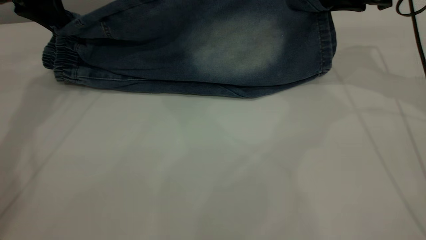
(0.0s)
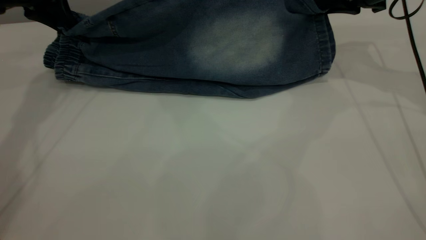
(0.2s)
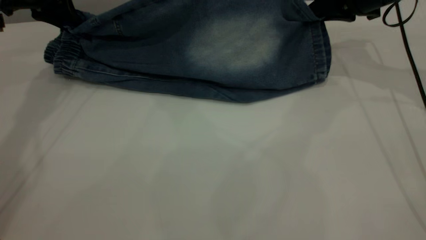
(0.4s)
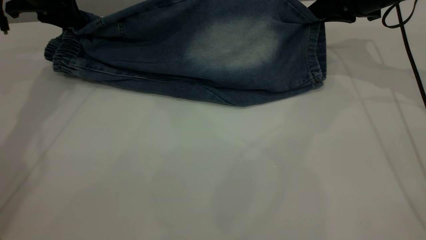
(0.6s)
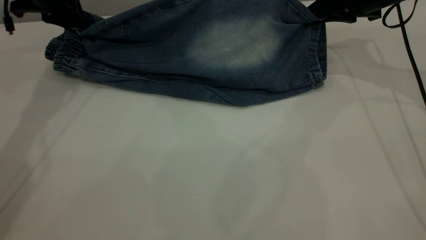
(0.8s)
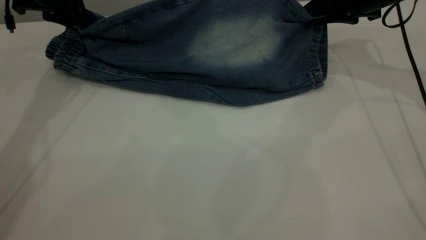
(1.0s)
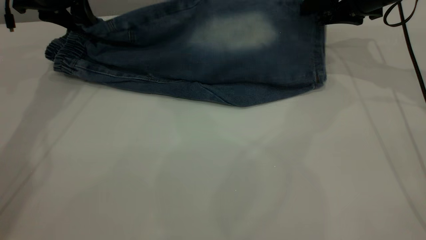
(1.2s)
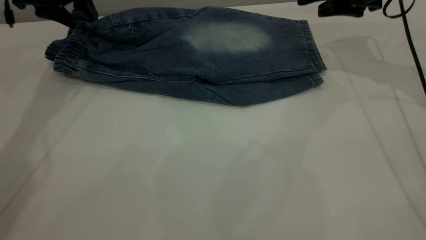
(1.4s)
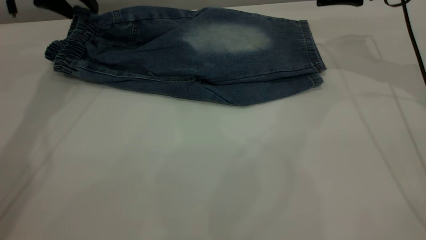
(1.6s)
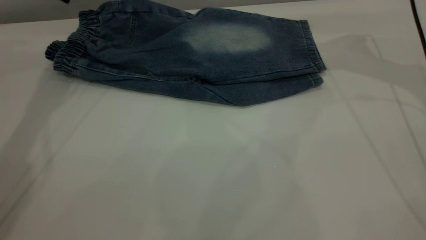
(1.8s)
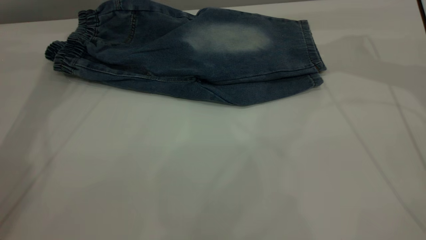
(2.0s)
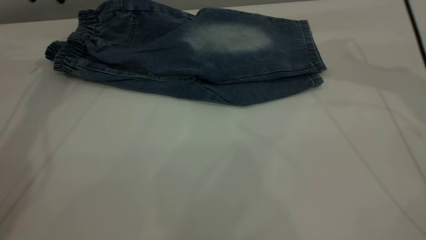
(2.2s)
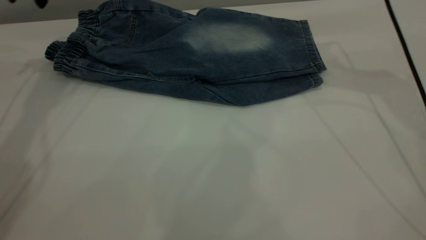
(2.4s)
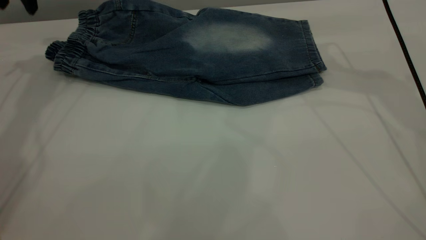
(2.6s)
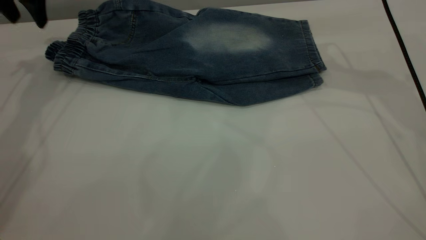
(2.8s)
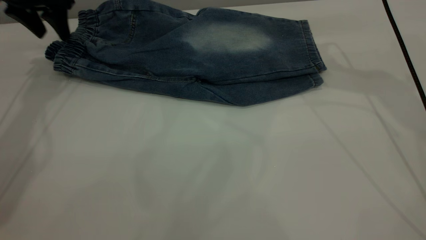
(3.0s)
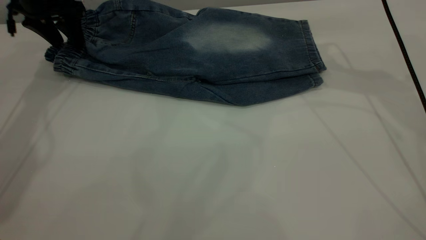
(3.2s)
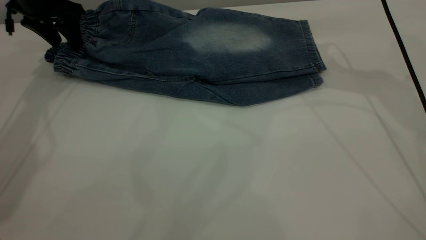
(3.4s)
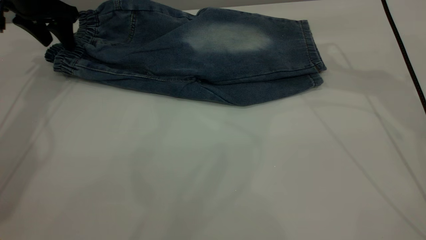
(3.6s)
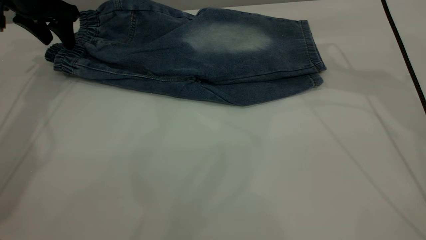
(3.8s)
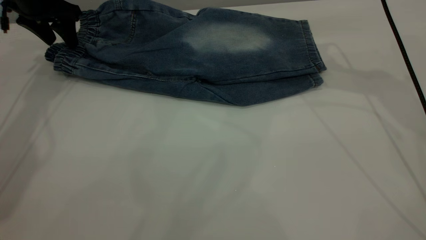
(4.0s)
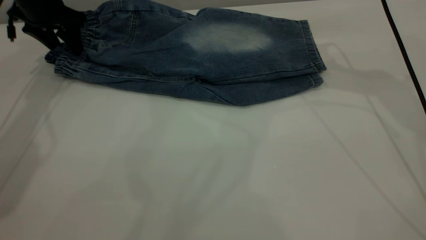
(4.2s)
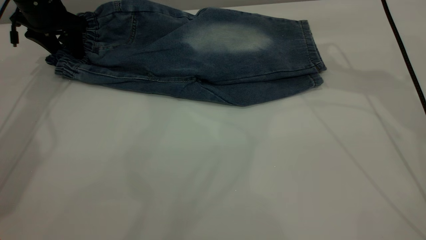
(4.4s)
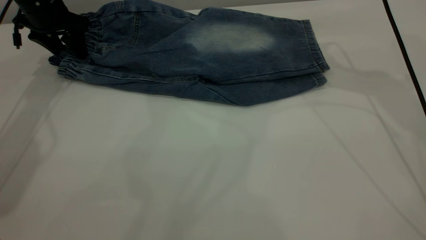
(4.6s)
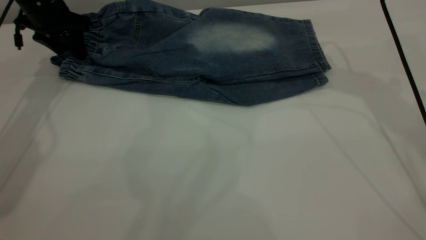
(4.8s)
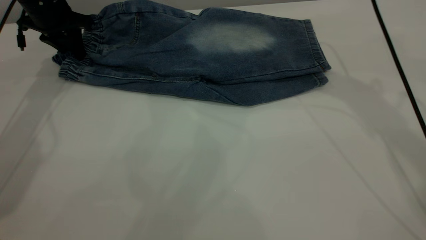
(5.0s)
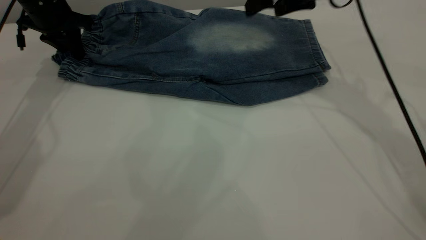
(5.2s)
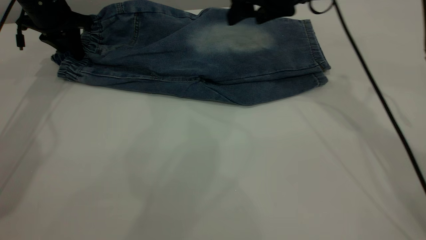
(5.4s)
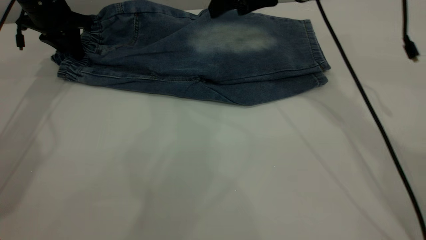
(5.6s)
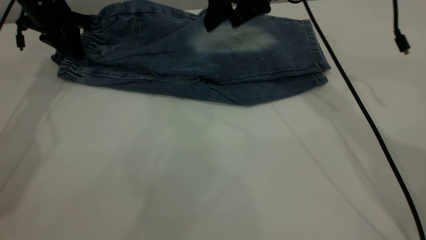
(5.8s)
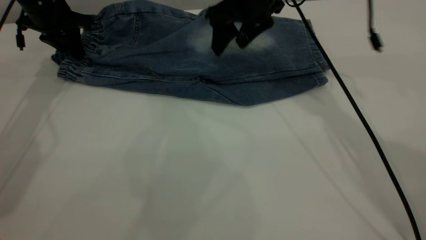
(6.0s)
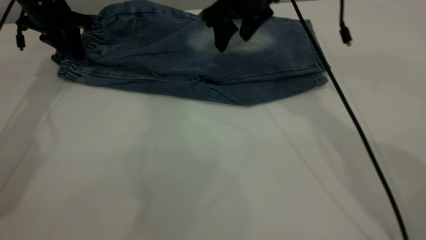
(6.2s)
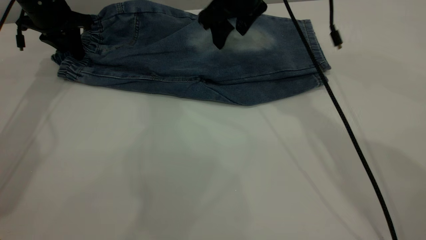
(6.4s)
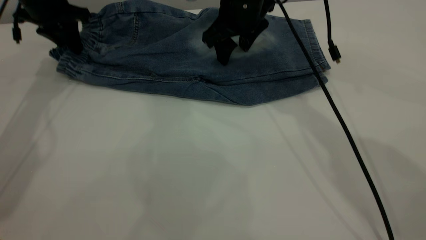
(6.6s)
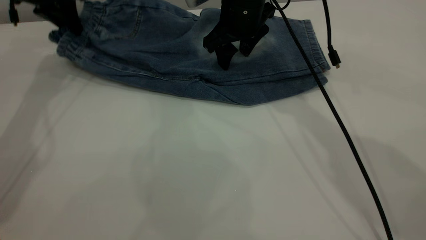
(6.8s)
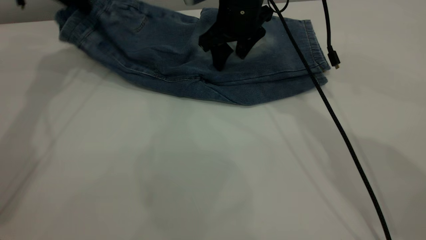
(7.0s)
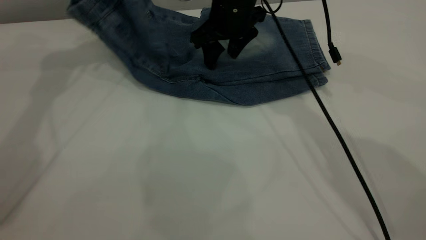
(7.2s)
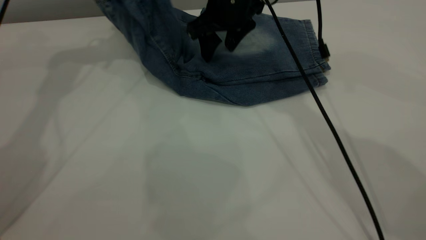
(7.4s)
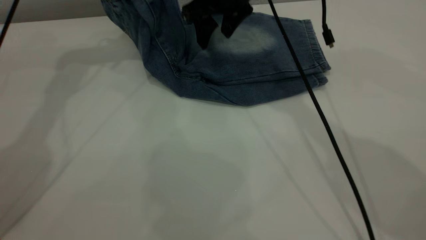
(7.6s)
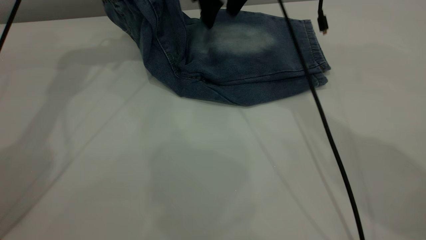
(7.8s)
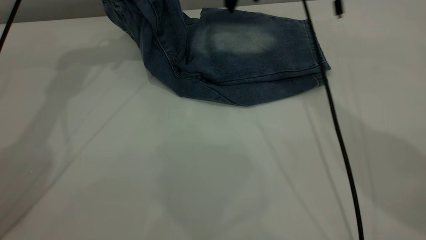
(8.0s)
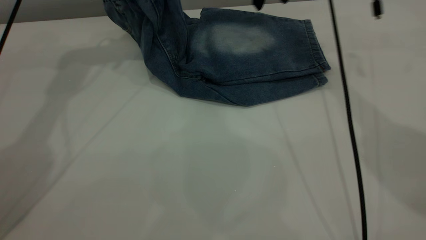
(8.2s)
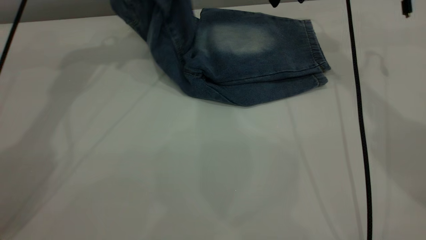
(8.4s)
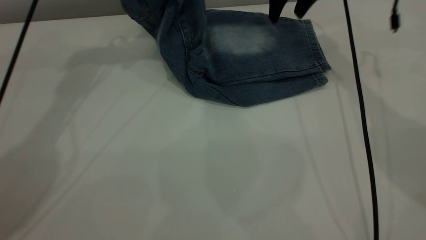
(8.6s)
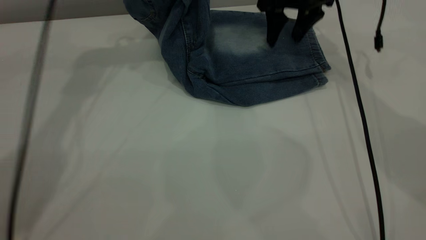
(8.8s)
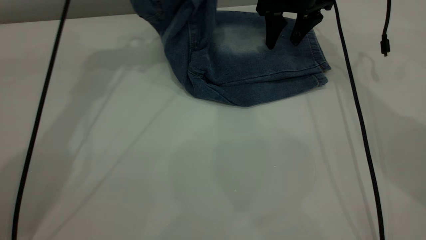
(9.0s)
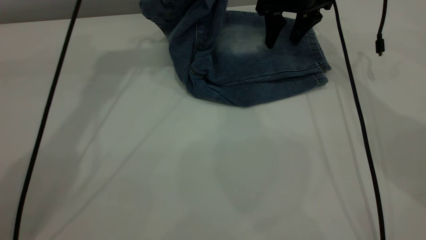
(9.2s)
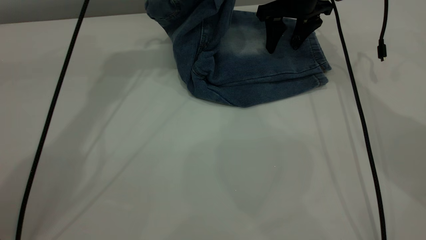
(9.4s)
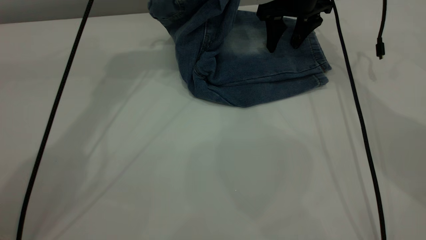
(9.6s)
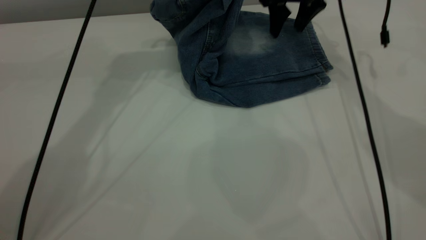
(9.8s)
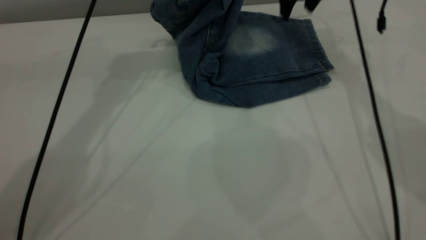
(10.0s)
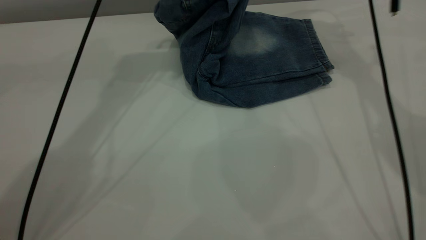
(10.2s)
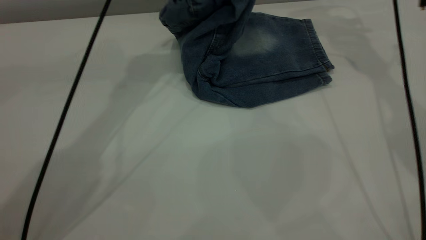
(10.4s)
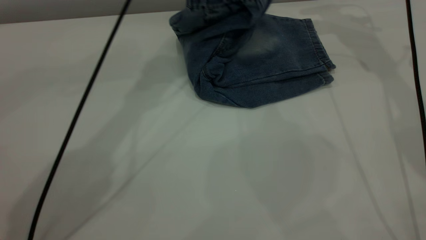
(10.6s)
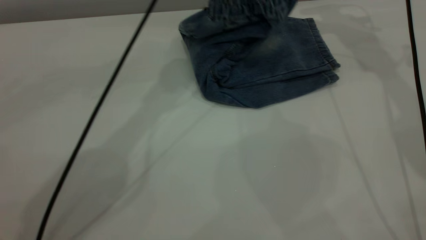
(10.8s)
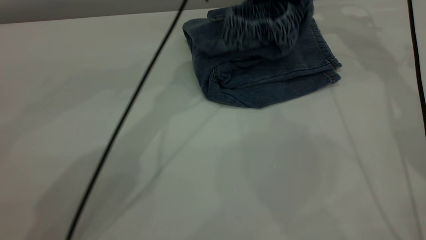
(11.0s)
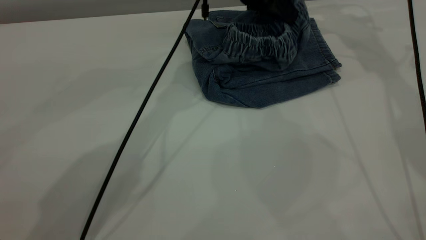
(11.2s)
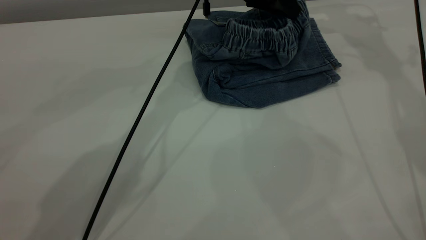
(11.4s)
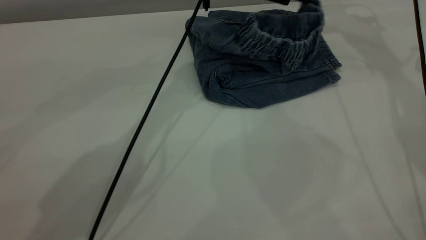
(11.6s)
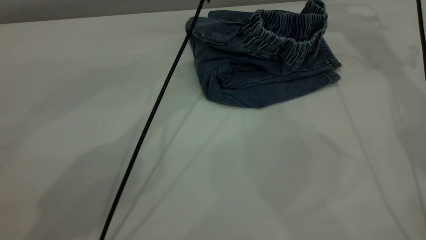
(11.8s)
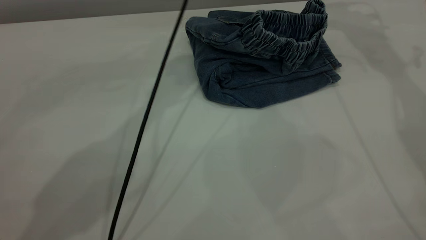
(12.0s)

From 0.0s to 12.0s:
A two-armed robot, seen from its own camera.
Step, from 0.0s to 2.0s: Fold the bottom of the pants upward.
Step, from 2.2s to 12.0s: Fold the pants from left to right.
From 0.0s to 1.6s: The left gripper opens up. Meanwhile the right gripper opens.
From 1.6s to 3.0s: The right gripper is displaced to the left by roughly 5 cm.
From 3.0s to 4.4s: There are only small adjustments of the grippers.
From 4.4s to 6.0s: The right gripper is displaced to the left and downward by about 15 cm, while the left gripper closes up.
From 6.0s to 7.6s: The left gripper is displaced upward and to the right by roughly 15 cm.
From 7.6s to 9.0s: The right gripper travels to the right by roughly 10 cm, while the left gripper shifts approximately 5 cm to the right.
From 9.0s to 10.4s: The right gripper goes about 10 cm upward and to the right. Meanwhile the left gripper goes some 10 cm to the right.
From 10.4s to 12.0s: The right gripper is displaced upward by about 5 cm, while the left gripper moves to the right, about 5 cm, travels downward and back again, roughly 10 cm each way, and opens its fingers.

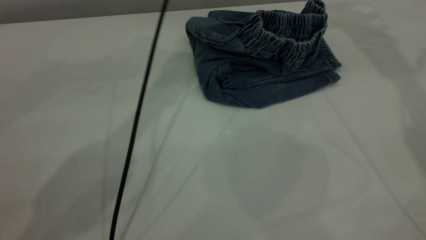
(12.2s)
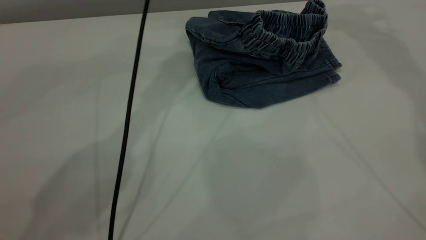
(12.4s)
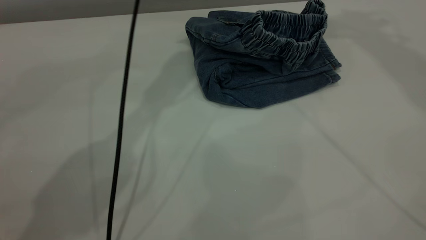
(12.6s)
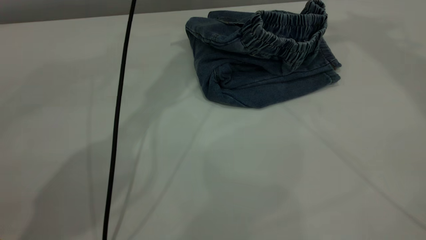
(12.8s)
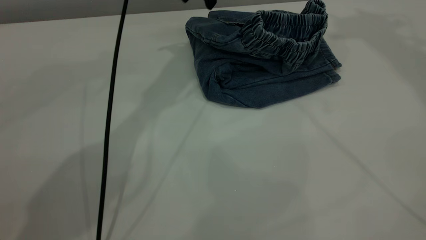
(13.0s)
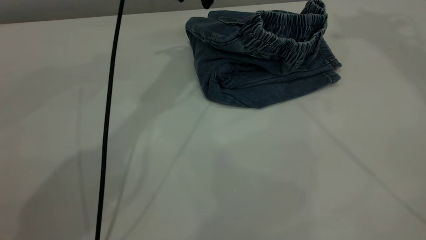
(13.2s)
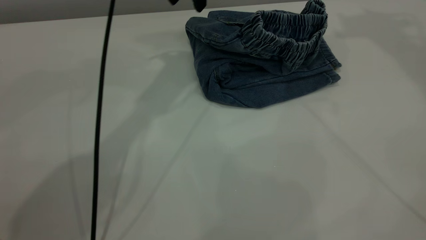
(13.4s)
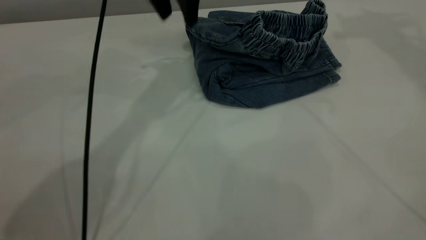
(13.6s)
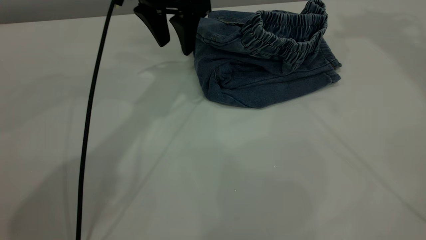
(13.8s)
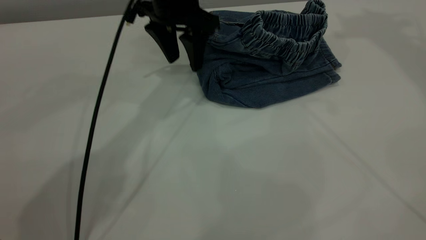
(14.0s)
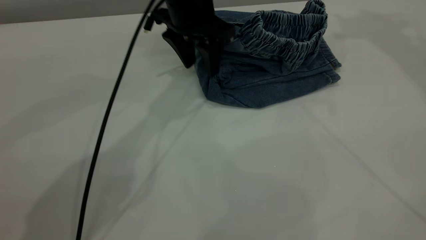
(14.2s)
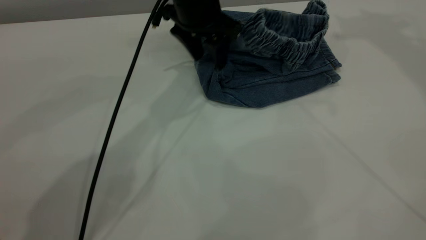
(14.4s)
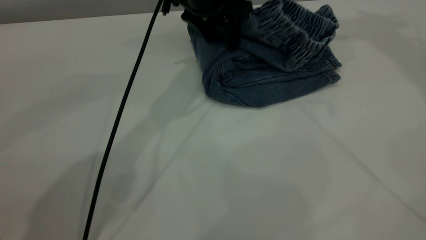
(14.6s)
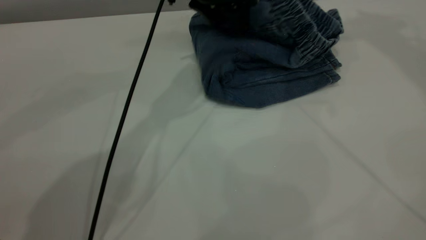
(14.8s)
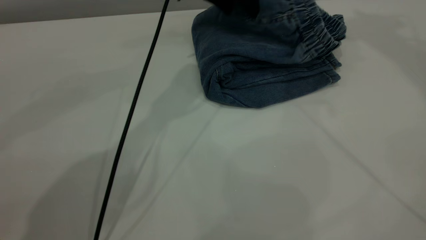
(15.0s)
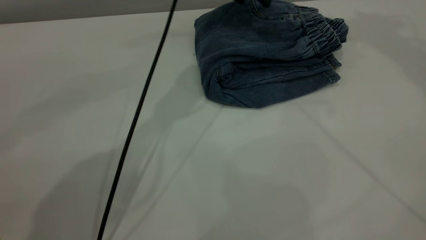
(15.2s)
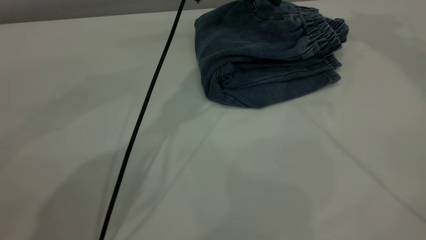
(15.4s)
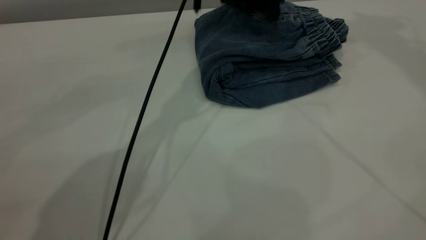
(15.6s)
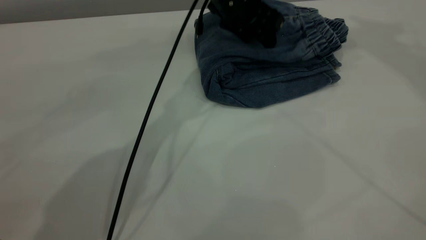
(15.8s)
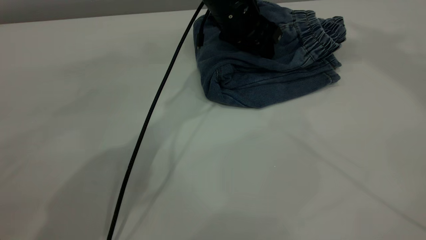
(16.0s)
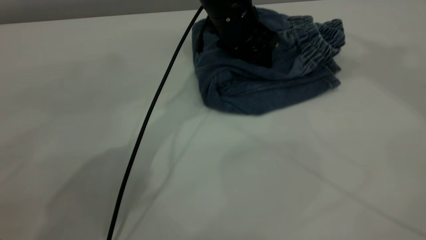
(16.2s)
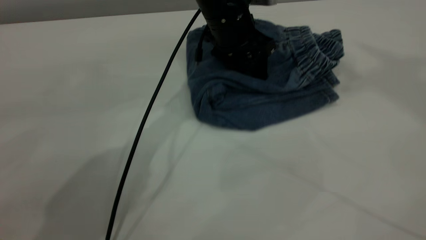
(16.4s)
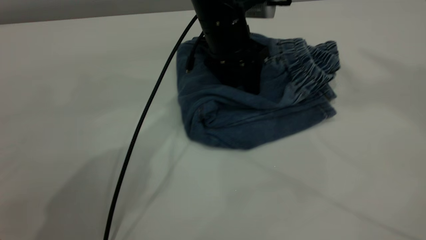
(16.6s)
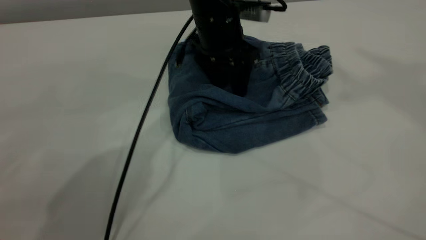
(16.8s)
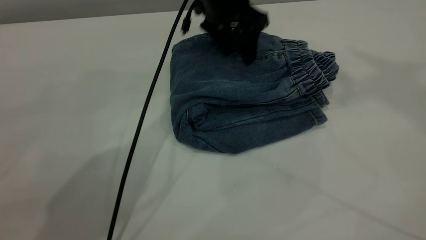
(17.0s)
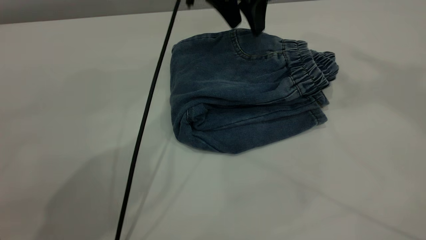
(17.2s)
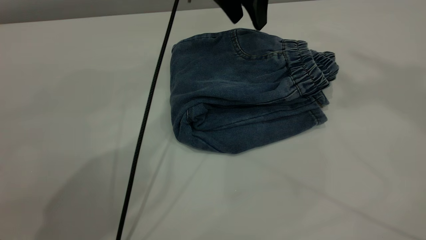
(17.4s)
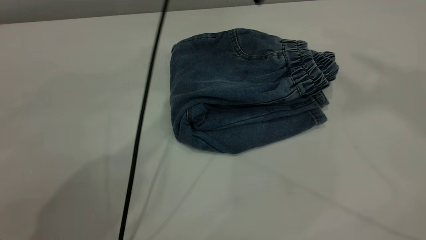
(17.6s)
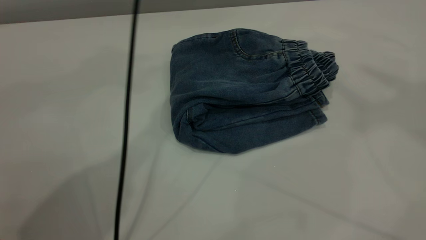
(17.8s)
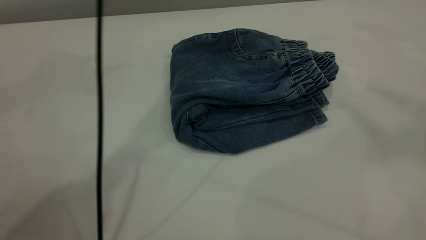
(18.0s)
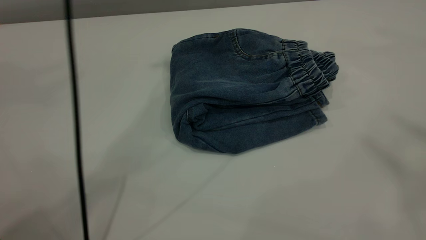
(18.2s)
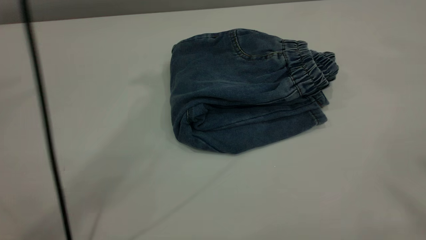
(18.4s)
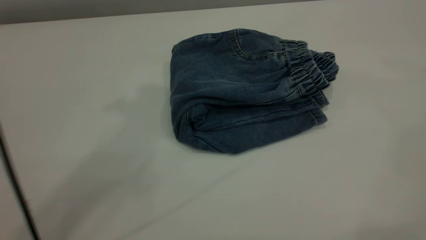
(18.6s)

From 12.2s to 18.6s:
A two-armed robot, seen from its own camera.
From 12.2s to 13.8s: The right gripper travels upward and backward by approximately 15 cm. Meanwhile the left gripper travels downward and to the left by about 10 cm.
From 13.8s to 15.4s: The left gripper travels to the right by about 10 cm.
From 15.4s to 17.0s: The right gripper is displaced backward and upward by approximately 20 cm.
From 17.0s to 18.6s: The left gripper shifts about 40 cm upward and backward. Meanwhile the right gripper shifts roughly 25 cm backward.
